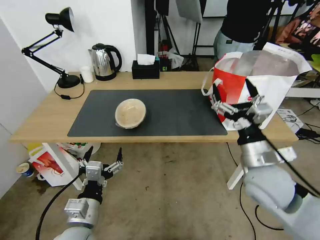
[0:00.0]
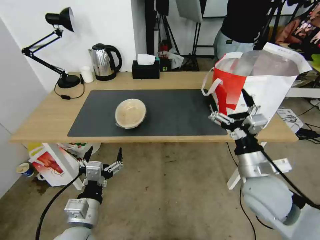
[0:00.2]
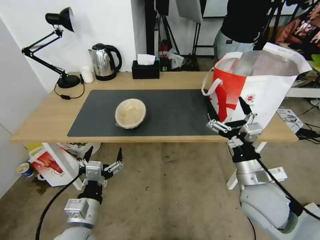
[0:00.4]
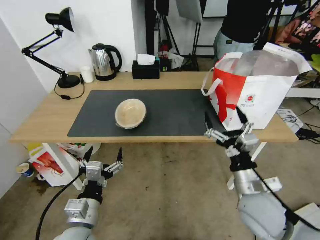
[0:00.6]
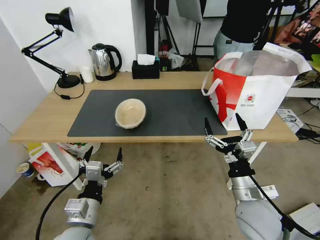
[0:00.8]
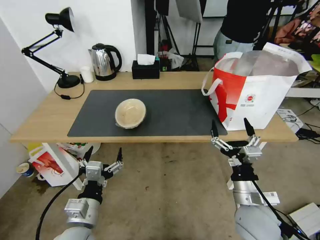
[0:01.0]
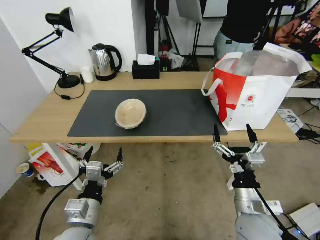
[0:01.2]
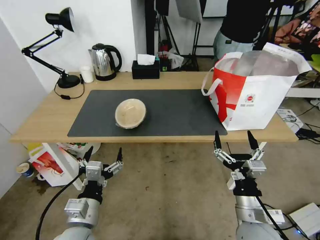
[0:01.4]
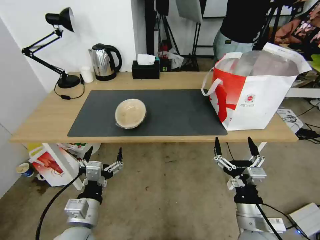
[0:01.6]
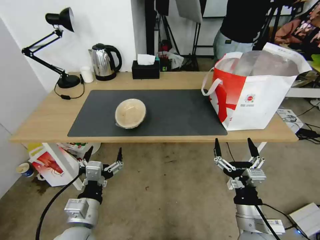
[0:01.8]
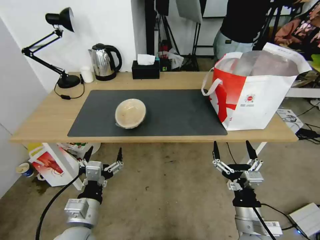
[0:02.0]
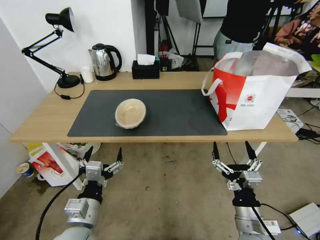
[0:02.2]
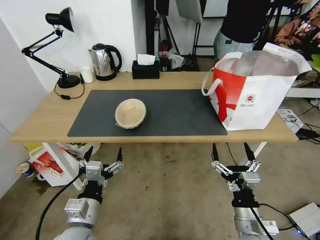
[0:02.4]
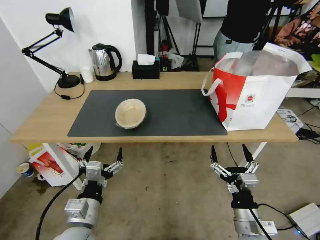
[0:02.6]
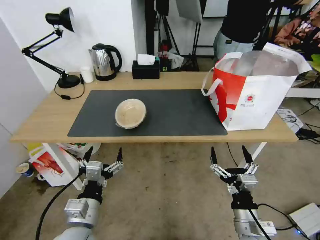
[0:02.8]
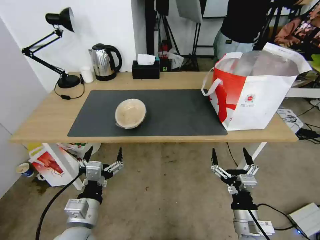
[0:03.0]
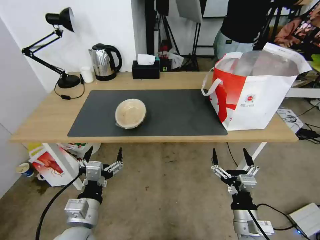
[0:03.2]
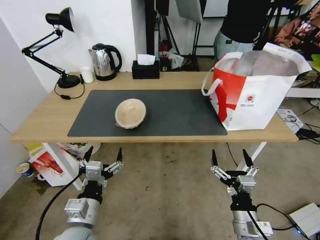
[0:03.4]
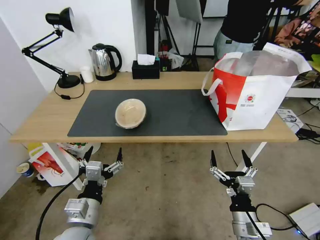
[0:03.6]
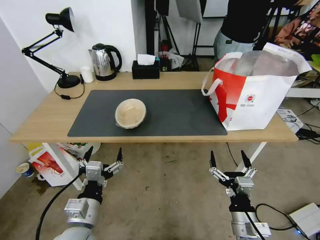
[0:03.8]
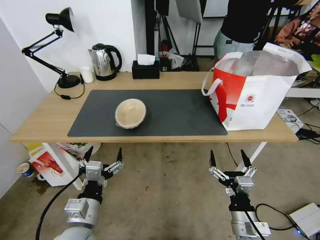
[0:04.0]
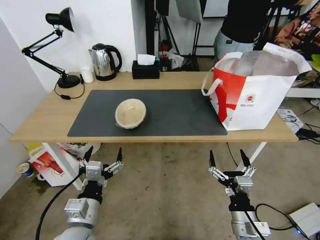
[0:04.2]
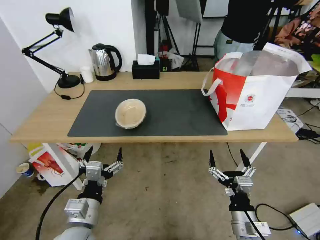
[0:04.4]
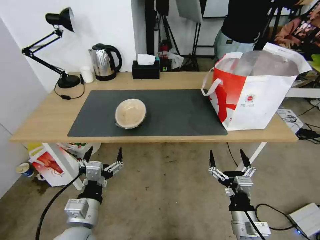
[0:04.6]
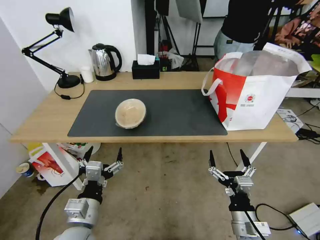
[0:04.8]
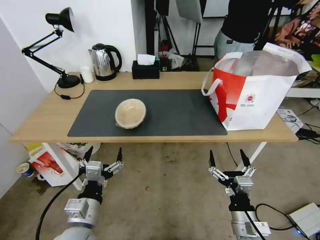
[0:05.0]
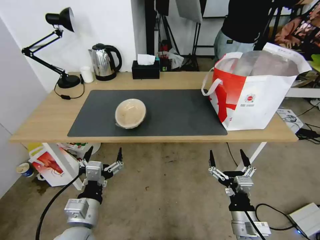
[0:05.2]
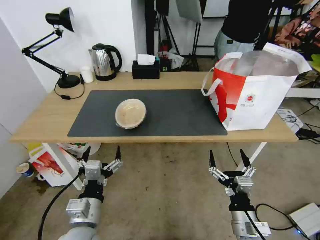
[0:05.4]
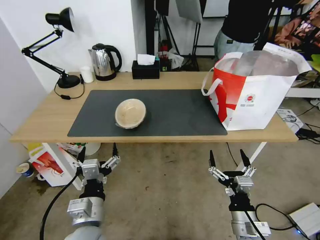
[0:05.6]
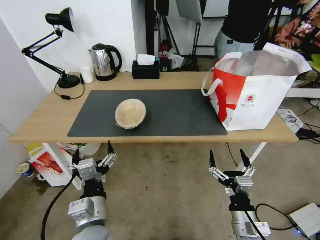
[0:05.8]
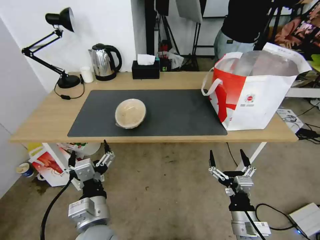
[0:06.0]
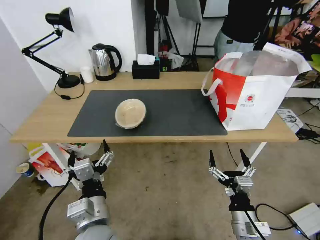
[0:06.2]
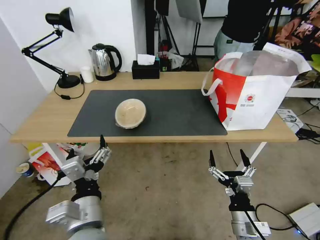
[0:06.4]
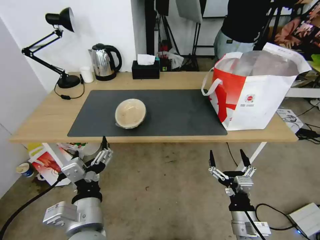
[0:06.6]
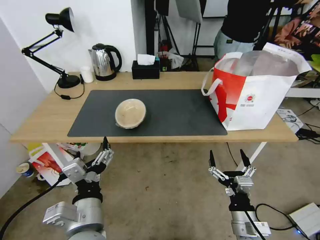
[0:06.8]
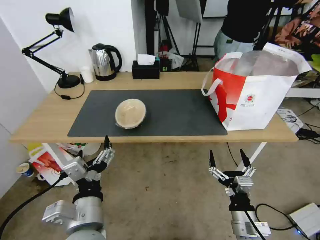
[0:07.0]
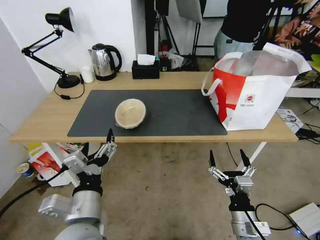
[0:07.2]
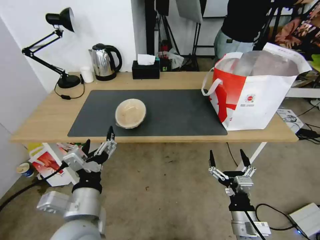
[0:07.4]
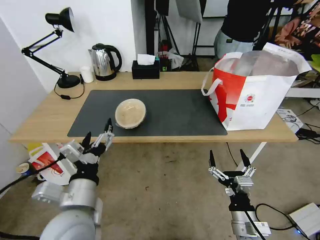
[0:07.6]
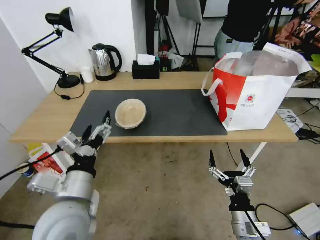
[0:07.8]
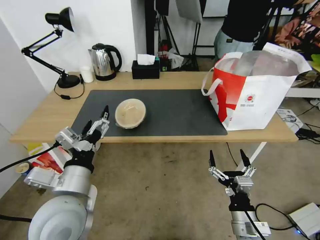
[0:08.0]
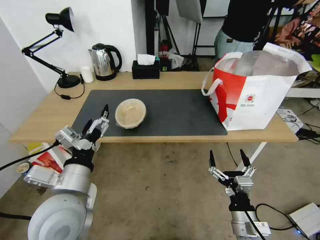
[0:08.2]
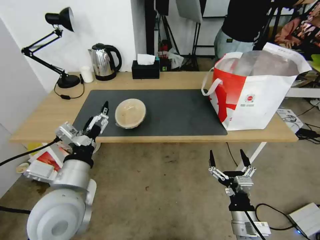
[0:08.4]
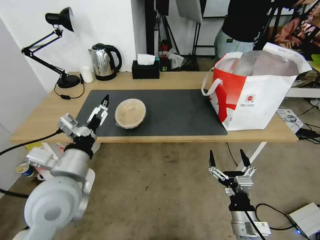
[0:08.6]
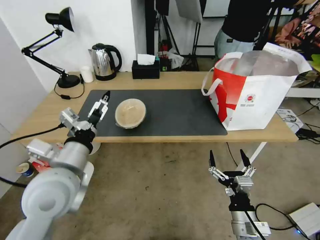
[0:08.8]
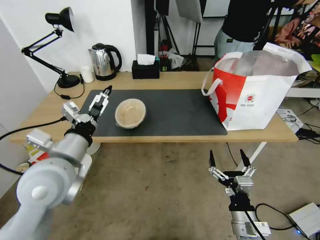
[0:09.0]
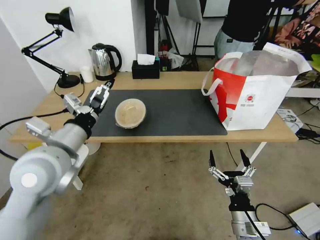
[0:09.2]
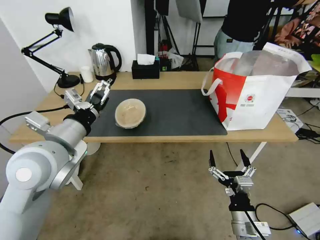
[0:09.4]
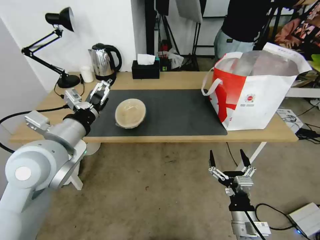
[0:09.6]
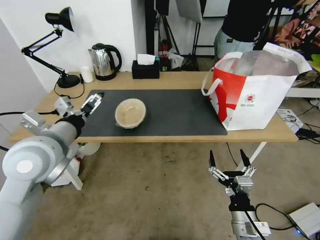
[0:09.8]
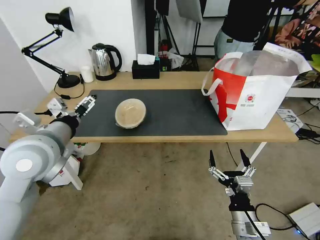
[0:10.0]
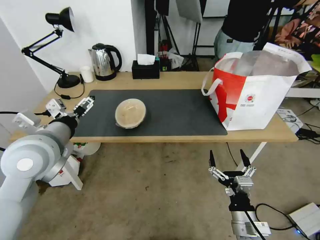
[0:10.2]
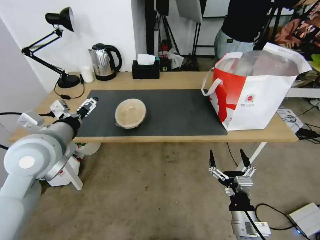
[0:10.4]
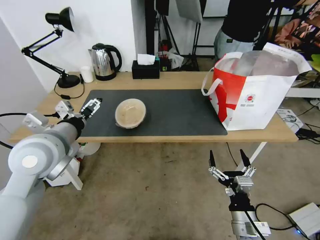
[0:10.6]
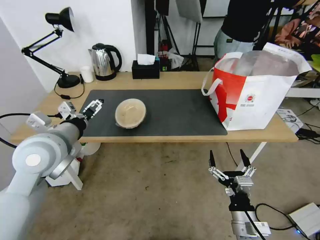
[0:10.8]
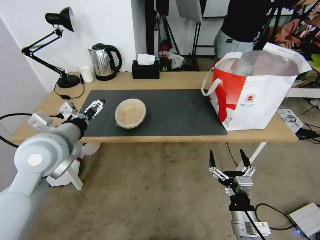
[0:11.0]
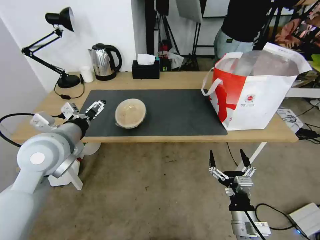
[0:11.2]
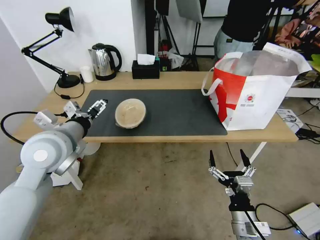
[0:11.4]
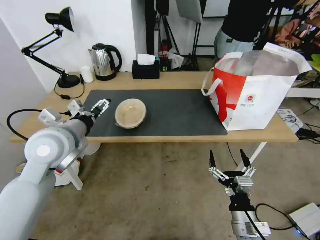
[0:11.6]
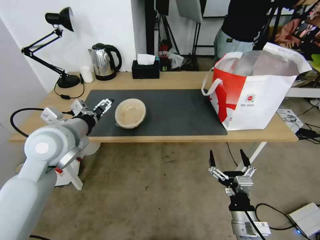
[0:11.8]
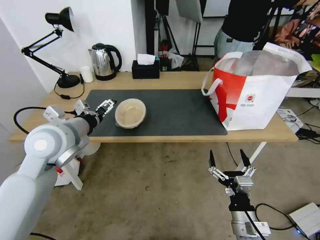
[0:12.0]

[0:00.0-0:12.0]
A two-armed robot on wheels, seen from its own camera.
Task of the whole recording: Pick up the trash from the table and place it into the takeout bag.
0:00.0 to 0:01.6: The right gripper goes some 15 cm backward and downward.
0:01.6 to 0:03.0: The grippers make only small movements.
0:03.0 to 0:04.4: Both grippers stay about where they are.
0:04.4 to 0:06.0: The left gripper shifts roughly 5 cm to the right.
0:06.0 to 0:07.6: The left gripper shifts about 5 cm upward.
0:07.6 to 0:09.0: The left gripper travels forward and upward by roughly 10 cm.
0:09.0 to 0:10.4: The left gripper shifts by some 5 cm.
0:10.4 to 0:12.0: The grippers stay close to where they were, moving slightly.

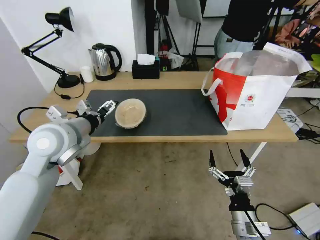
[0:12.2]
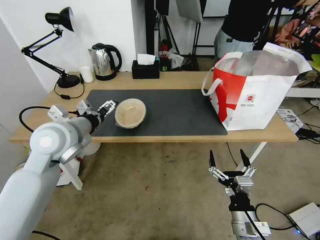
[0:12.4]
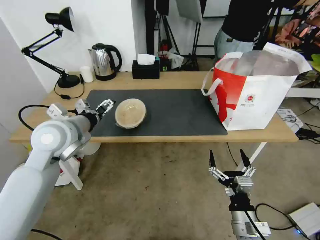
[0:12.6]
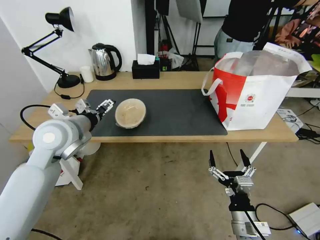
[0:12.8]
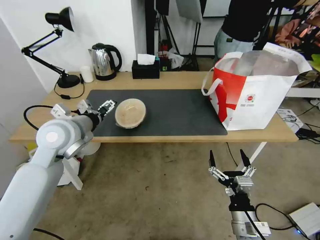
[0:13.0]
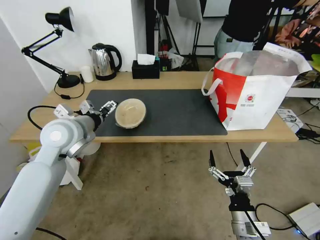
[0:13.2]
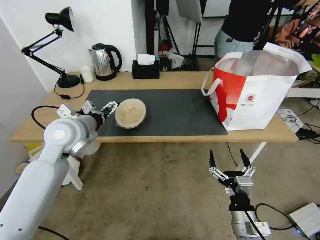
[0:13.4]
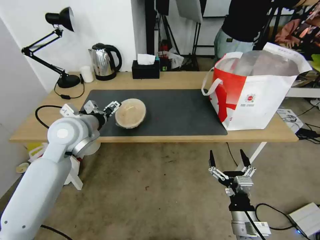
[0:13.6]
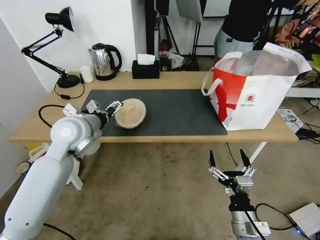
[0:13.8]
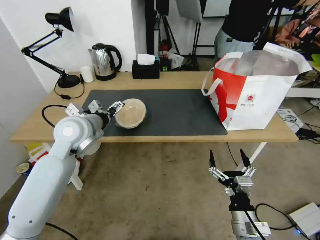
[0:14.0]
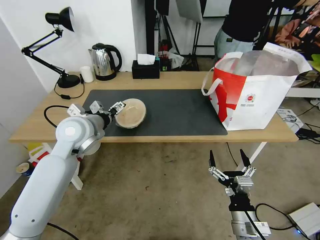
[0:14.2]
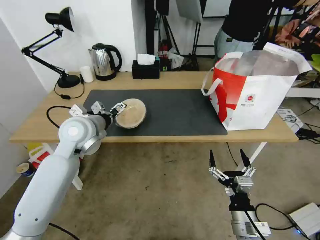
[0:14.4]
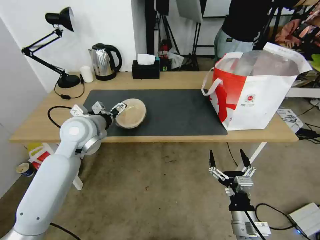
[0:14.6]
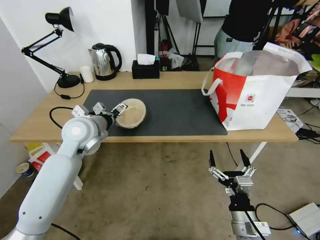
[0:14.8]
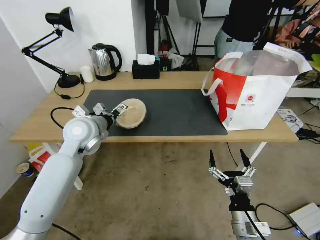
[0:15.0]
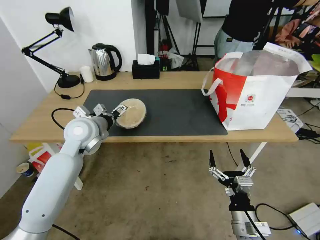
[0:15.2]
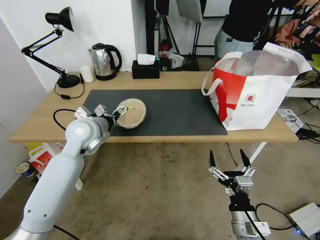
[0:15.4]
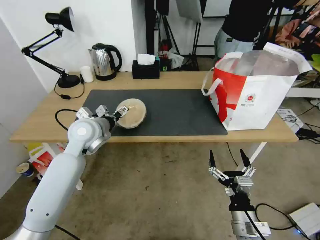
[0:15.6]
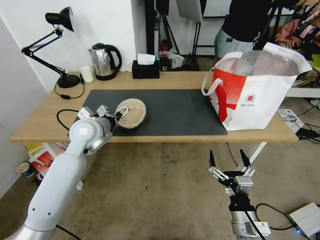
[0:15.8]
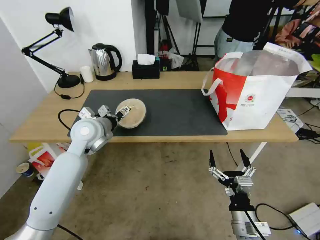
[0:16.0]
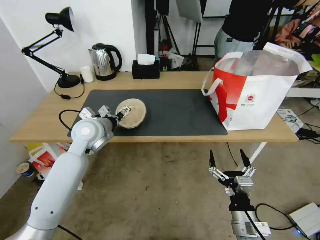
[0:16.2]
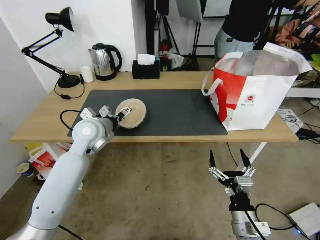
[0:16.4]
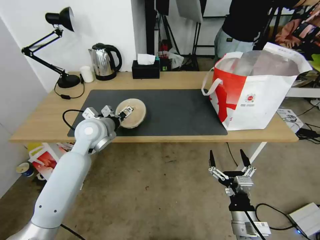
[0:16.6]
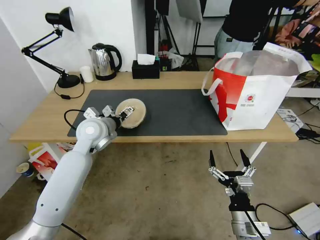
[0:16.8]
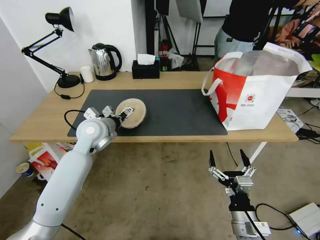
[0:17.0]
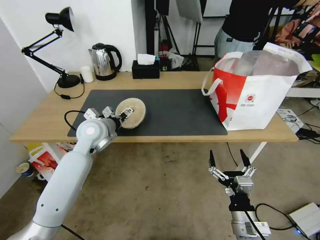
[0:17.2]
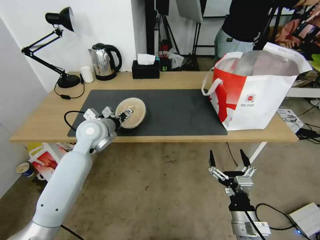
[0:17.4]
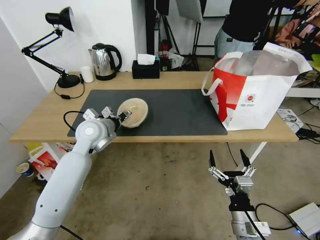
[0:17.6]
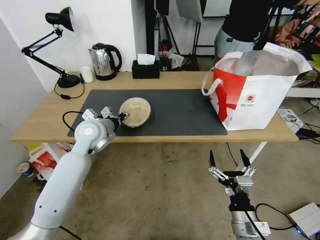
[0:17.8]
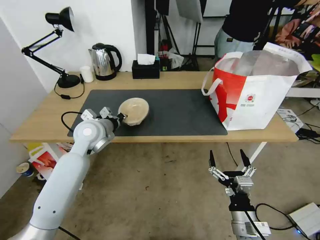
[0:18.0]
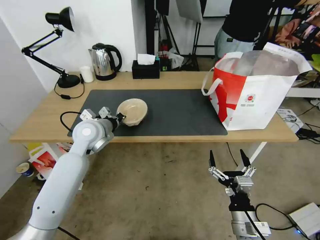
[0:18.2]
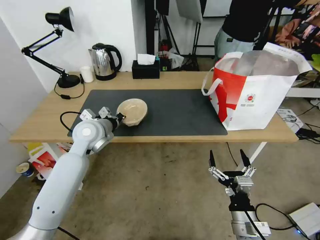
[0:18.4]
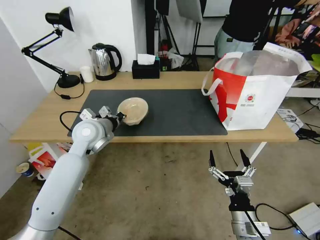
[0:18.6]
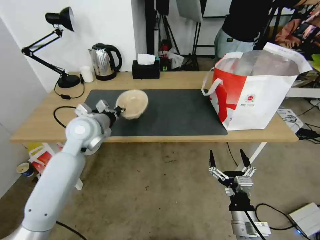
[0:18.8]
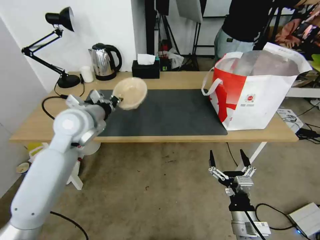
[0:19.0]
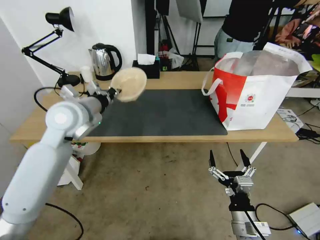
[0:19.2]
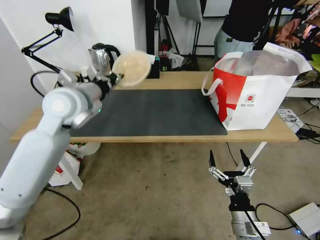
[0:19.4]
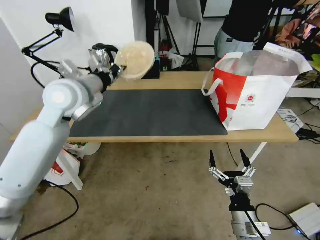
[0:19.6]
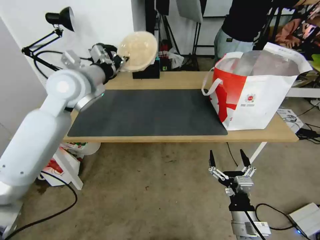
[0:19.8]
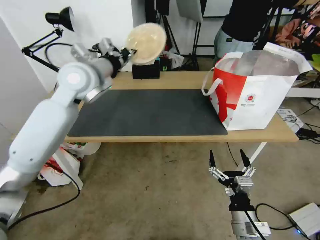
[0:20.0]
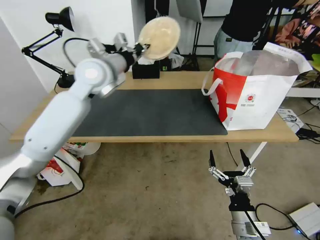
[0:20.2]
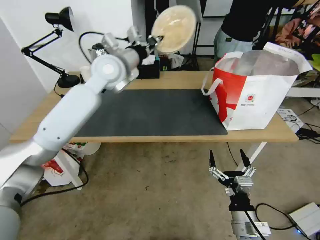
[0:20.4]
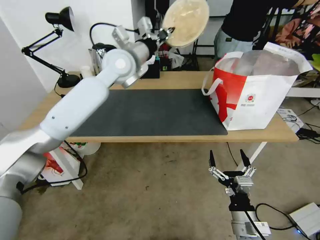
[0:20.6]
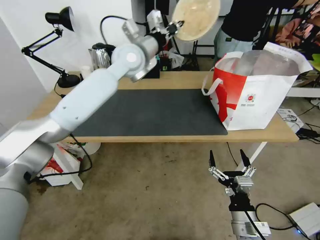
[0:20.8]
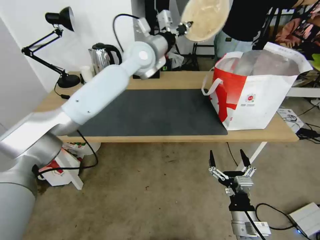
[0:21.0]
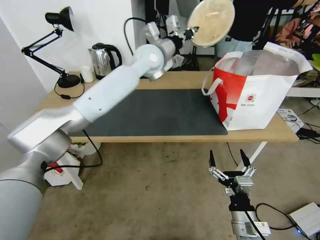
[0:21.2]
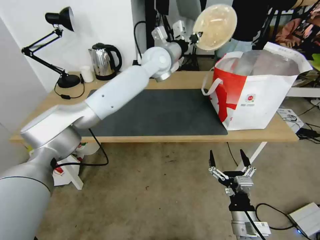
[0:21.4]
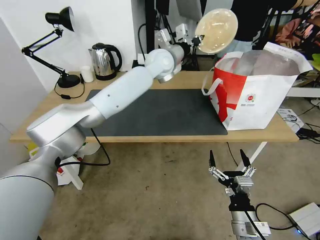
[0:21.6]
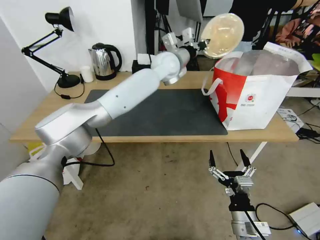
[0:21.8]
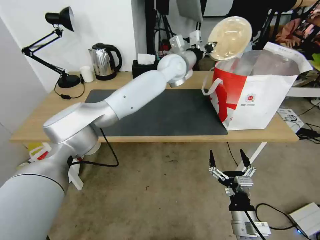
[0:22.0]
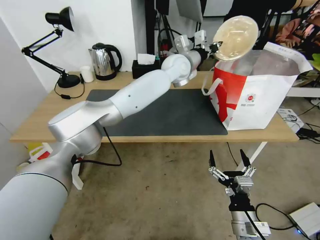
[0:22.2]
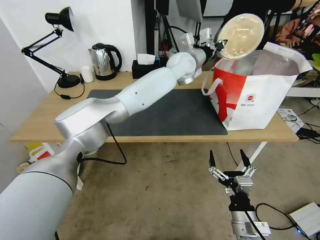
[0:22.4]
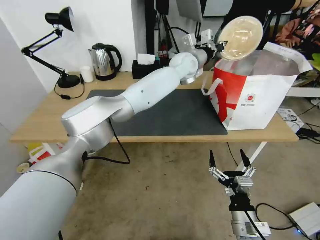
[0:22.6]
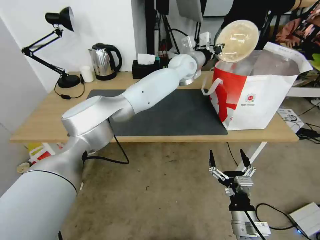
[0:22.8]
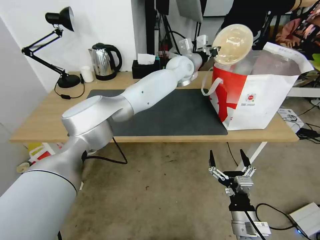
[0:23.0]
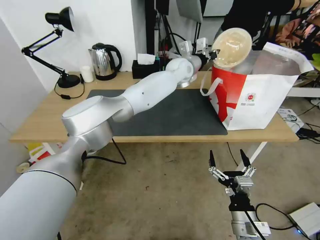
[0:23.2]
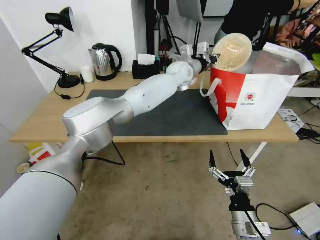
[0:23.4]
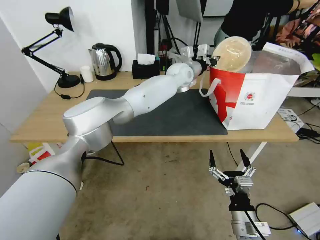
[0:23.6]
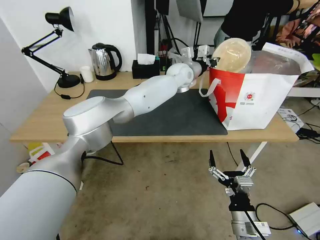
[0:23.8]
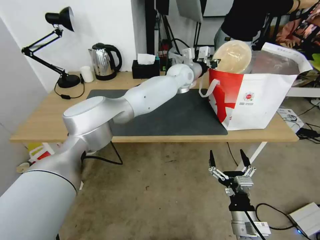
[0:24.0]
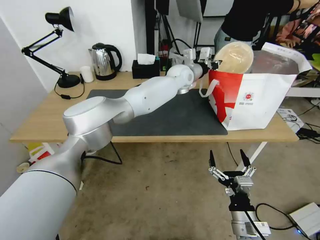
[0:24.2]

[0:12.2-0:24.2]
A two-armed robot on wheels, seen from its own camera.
Task of the whole recording: Pick up the trash from the table and place it into the takeout bag.
0:12.2 to 0:13.8: The left gripper shifts by roughly 5 cm.
0:13.8 to 0:15.2: The grippers move only a little.
0:15.2 to 0:16.6: The grippers move only a little.
0:16.6 to 0:18.2: The left gripper closes.
0:18.2 to 0:19.8: The left gripper heads upward, covering some 15 cm.
0:19.8 to 0:21.2: The left gripper goes approximately 25 cm to the right and forward.
0:21.2 to 0:22.6: The left gripper shifts approximately 10 cm to the right.
0:22.6 to 0:24.2: The left gripper shifts by roughly 5 cm.
